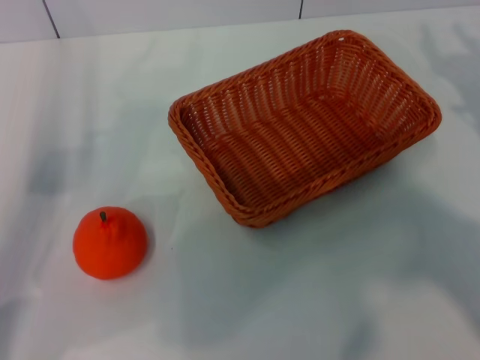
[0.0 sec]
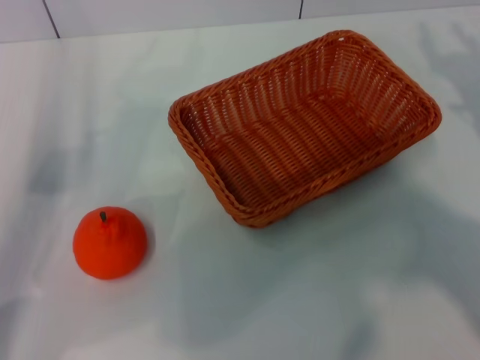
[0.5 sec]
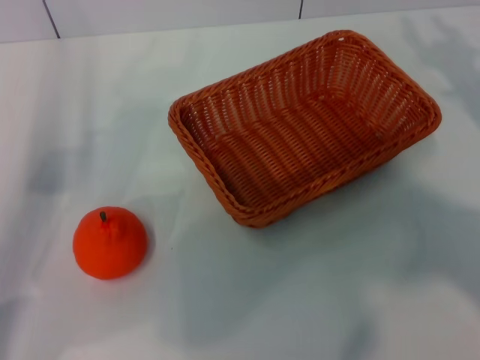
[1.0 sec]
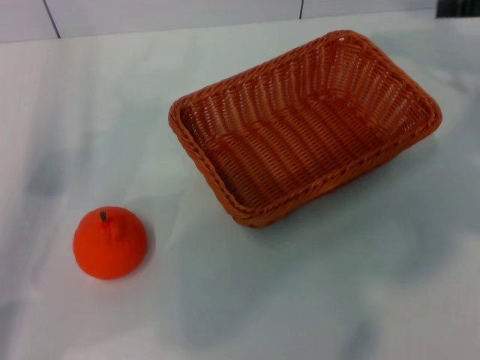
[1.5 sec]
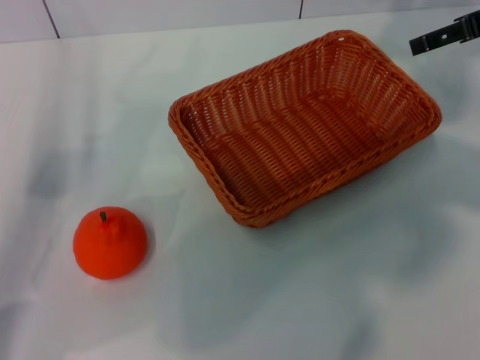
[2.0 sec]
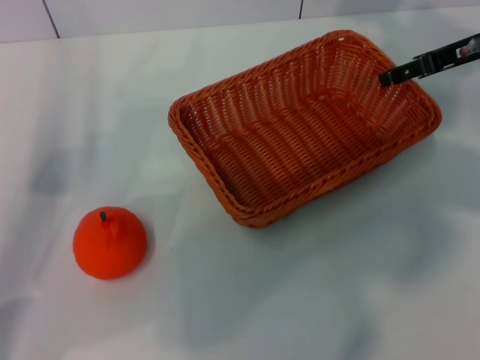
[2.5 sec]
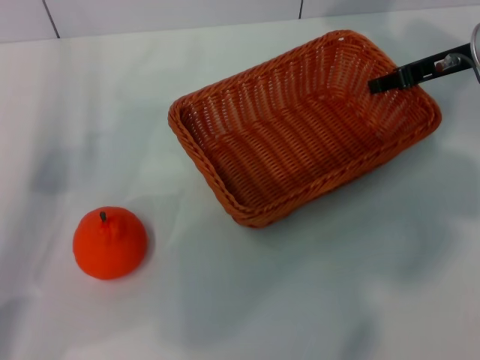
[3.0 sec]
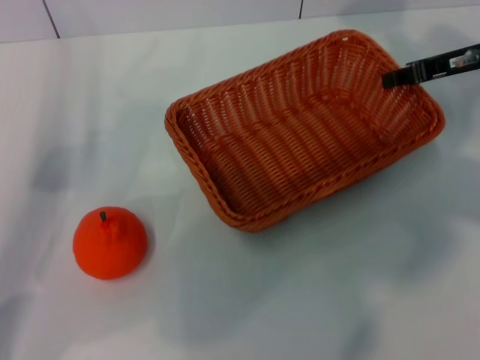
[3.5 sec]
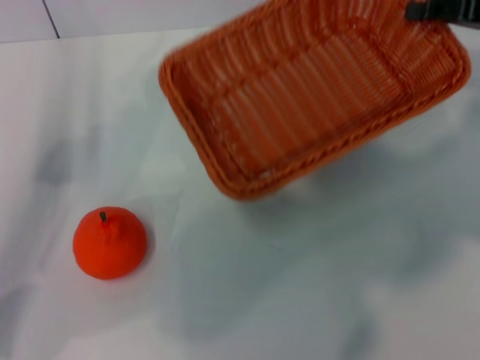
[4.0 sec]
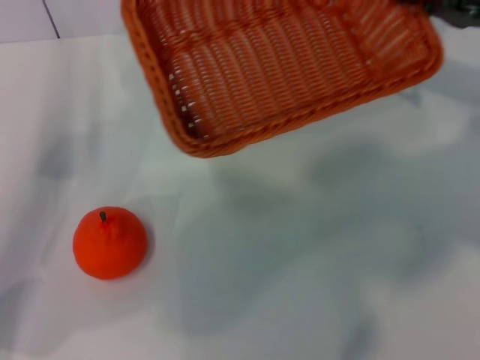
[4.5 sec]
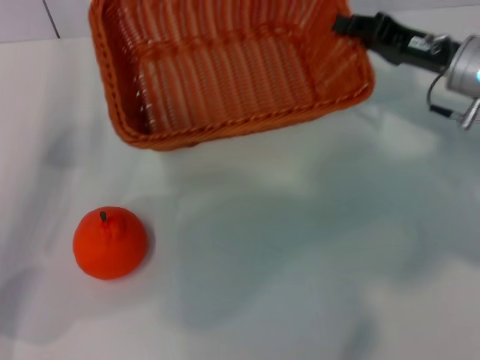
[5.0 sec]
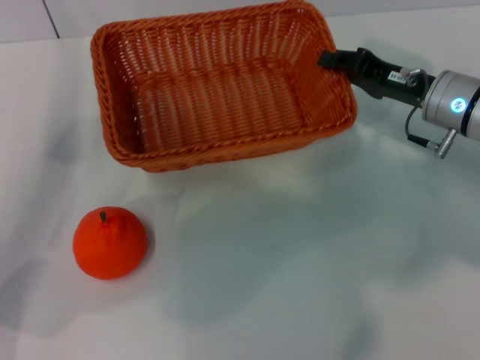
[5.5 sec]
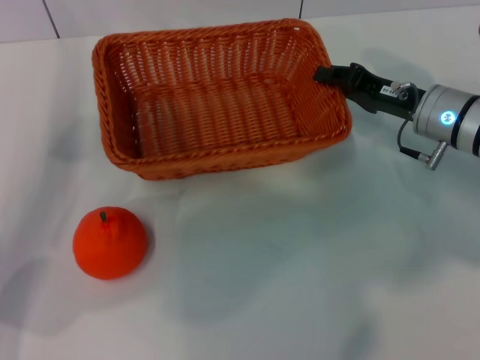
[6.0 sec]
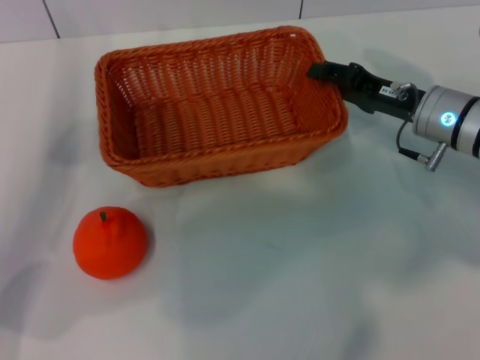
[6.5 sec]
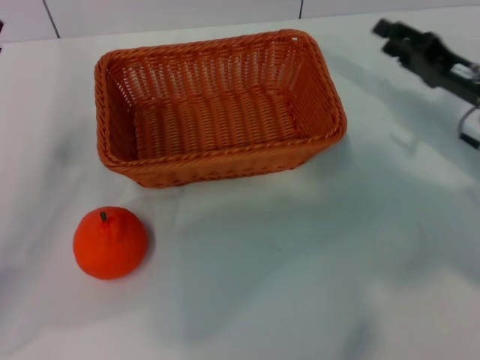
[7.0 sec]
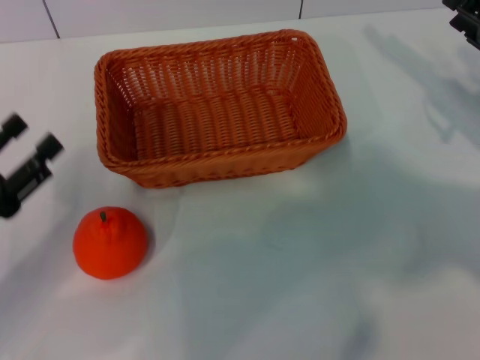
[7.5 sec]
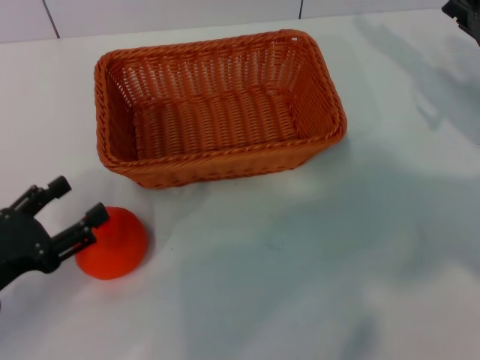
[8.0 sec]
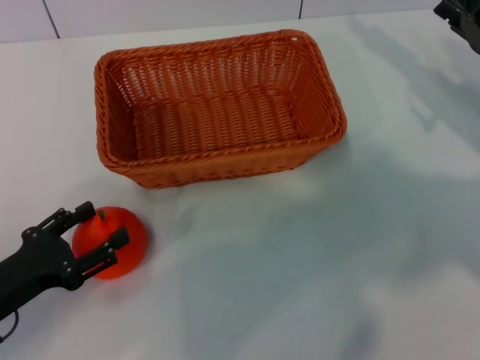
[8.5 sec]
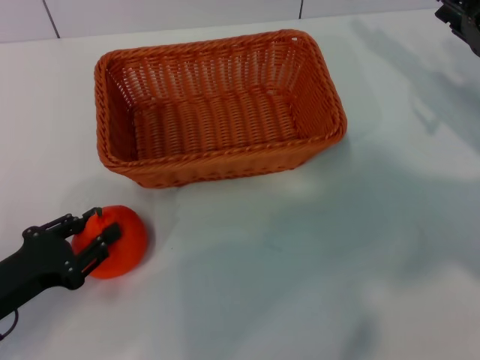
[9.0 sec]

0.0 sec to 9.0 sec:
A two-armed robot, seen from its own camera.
Task of the whole recording: the right gripper pick up the yellow basket and place it horizontally in the middle of the table, the left gripper pick up the orange and place it into the yellow basket.
Step, 0.0 sec to 3.5 sec: Pick up the light basket with the right gripper.
Step, 4.0 sec to 6.5 sec: Place the light basket in the center of view with the right gripper.
0.0 sec to 2.0 sec: The right gripper goes some 20 cm forward and upward, and opens.
2.0 sec to 4.5 sec: The right gripper is displaced downward by some 5 cm, and closes.
4.5 sec to 7.0 sec: The right gripper heads downward, covering approximately 10 cm, and opens.
7.0 sec to 9.0 sec: The left gripper travels backward and downward by some 10 cm.

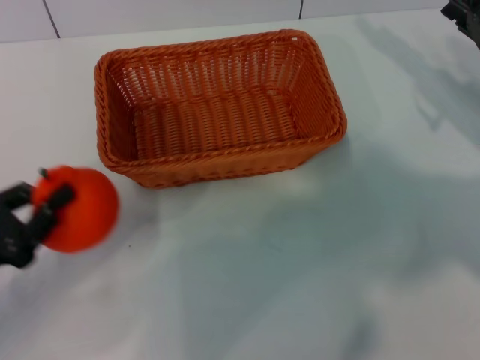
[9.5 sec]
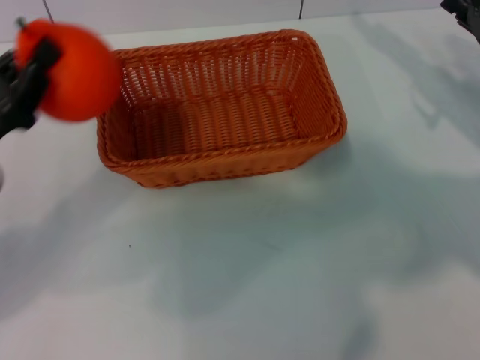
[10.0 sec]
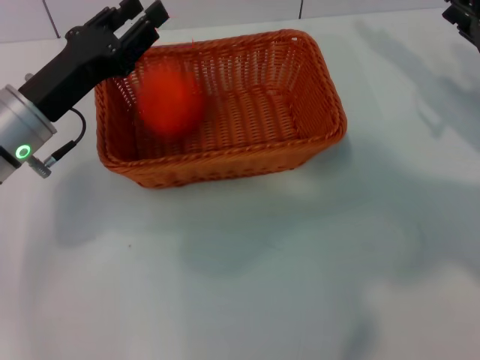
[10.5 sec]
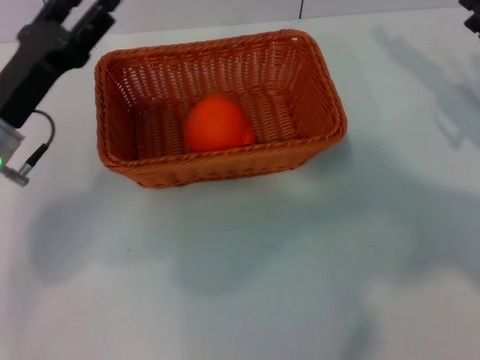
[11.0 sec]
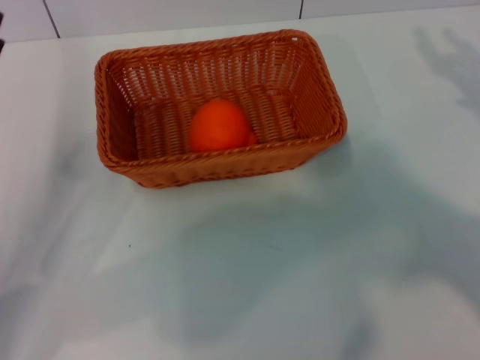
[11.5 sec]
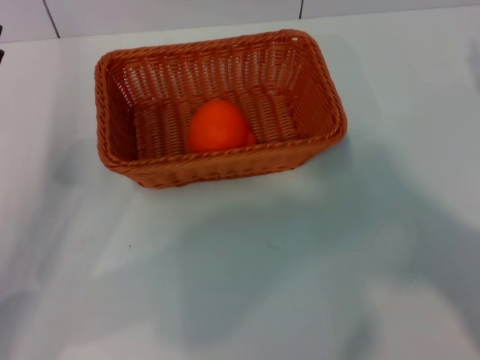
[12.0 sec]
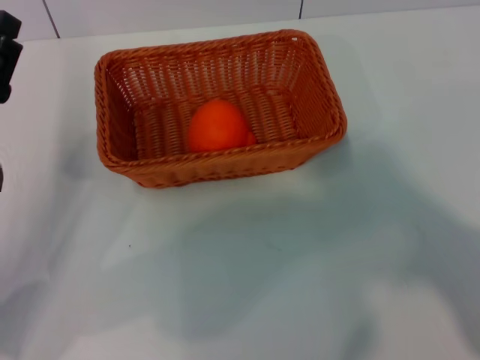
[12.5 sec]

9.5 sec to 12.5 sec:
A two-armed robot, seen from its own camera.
Task of the whole recording: the right gripper pick up the yellow basket and place it horizontally in the middle of the table, the left gripper pick up the orange and place it into the yellow basket.
Step, 10.0 sec to 10.5 sec: Place the orange into the light basket with the left gripper.
9.5 sec to 11.0 sec: The left gripper is displaced forward and to the right by approximately 15 cm, and opens up.
11.0 sec to 12.5 sec: The left gripper is displaced backward by about 5 cm. The right gripper travels backward and to the right by approximately 10 cm.

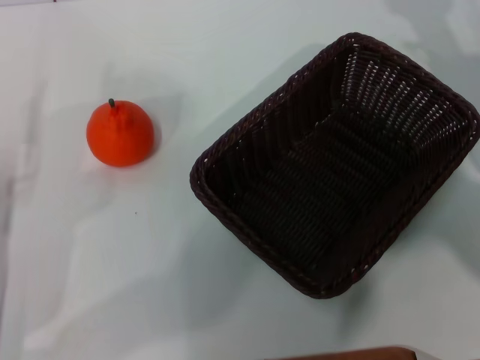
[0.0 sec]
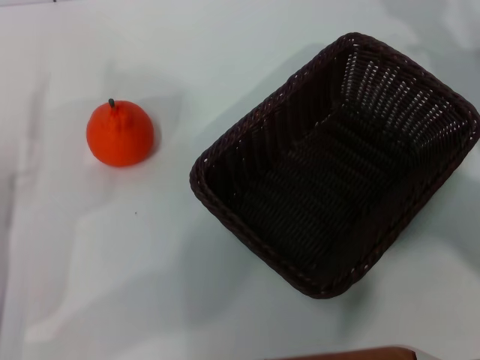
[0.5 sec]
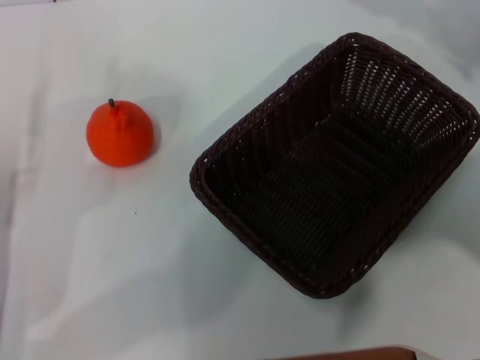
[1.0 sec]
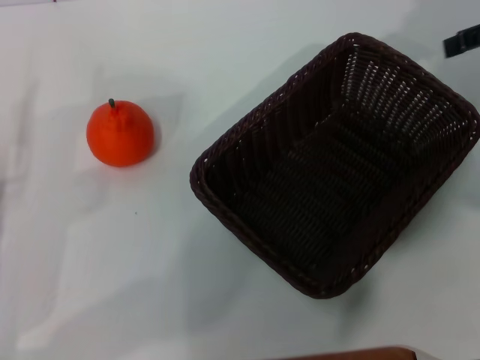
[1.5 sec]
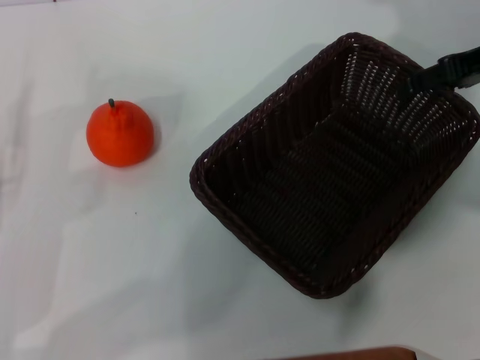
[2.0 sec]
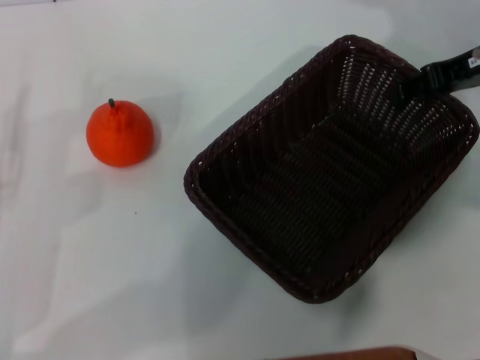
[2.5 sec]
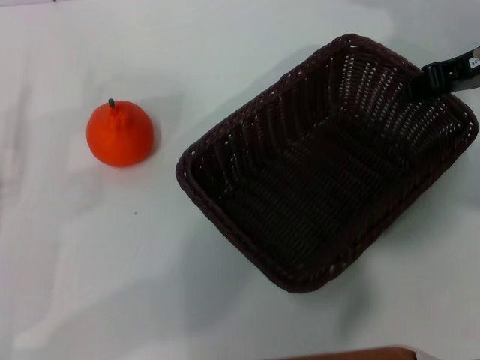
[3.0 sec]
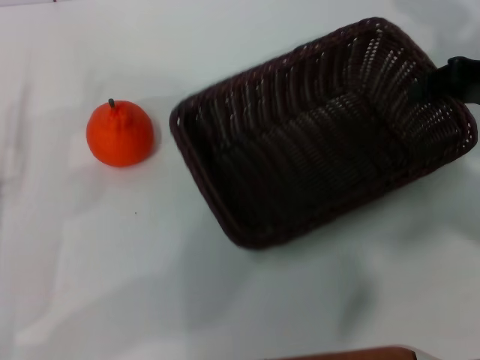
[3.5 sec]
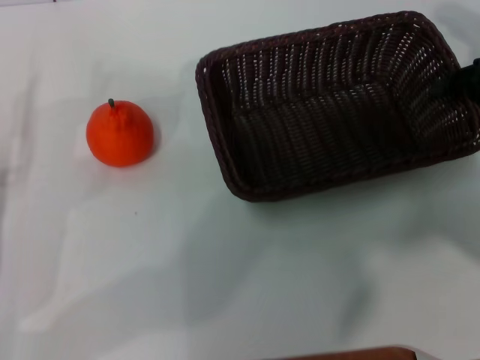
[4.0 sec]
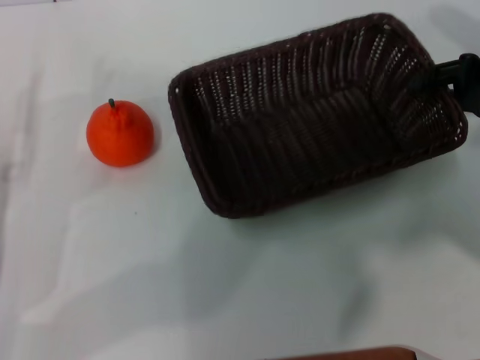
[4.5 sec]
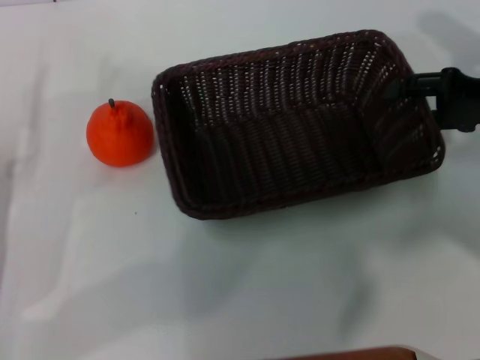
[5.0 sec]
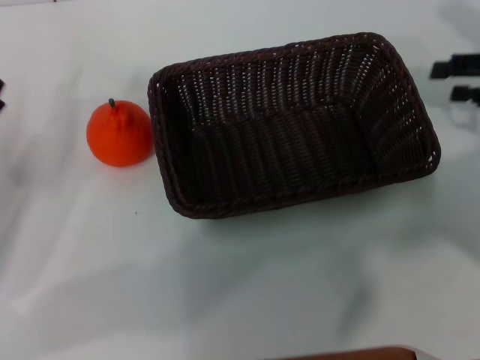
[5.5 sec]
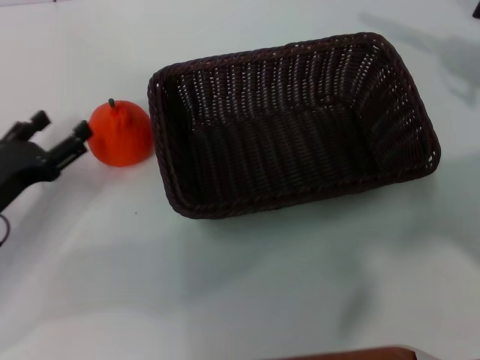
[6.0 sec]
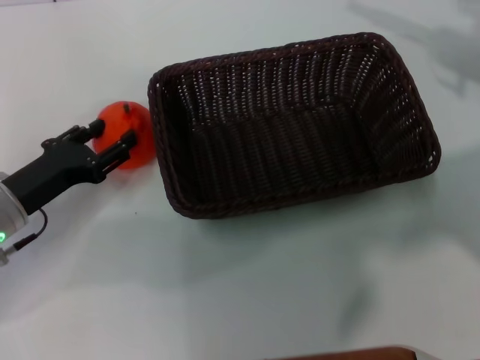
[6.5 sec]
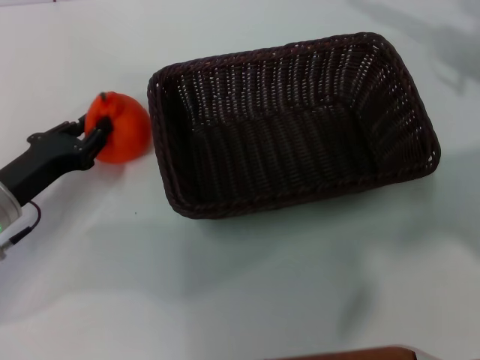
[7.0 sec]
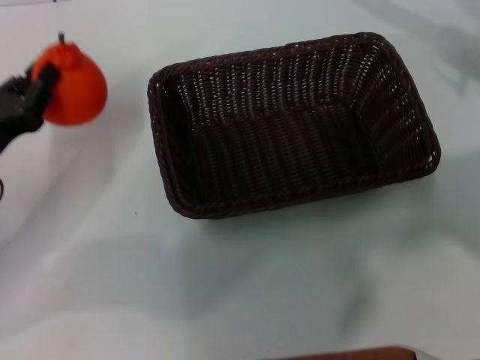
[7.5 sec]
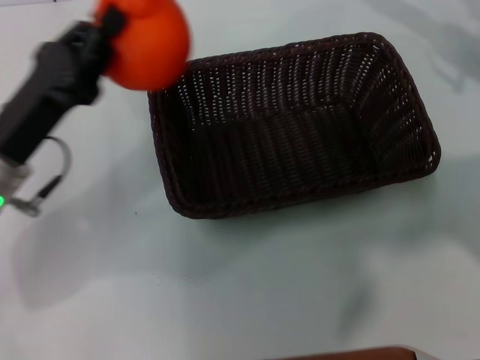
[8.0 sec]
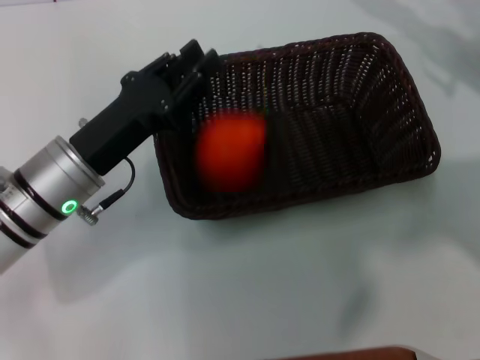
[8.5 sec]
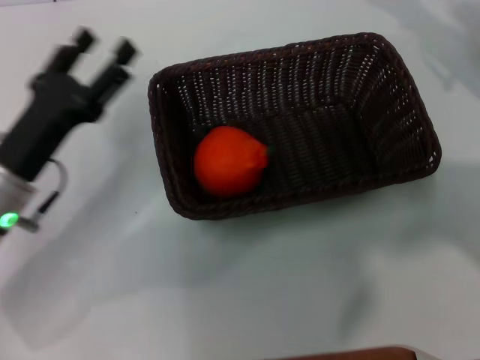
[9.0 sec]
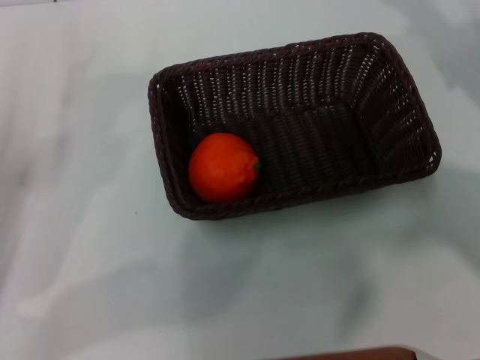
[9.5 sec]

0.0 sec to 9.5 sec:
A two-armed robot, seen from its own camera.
Task of the whole recording: the right gripper pick up the black basket and place it horizontally in the middle of the table, the left gripper pick up the orange and place it into the black basket.
Step, 0.0 sec to 3.0 sec: Pick up the dark basket with the right gripper.
Step, 3.5 sec to 5.0 sec: Place the dark basket in the center of view with the right gripper.
Step, 5.5 sec to 7.0 sec: Pick up the orange with the left gripper.
Step, 7.5 sec to 8.0 sec: Place the orange into the dark basket with the left gripper.
0.0 sec to 2.0 sec: The right gripper moves upward and forward, about 10 cm.
2.0 sec to 4.0 sec: The right gripper moves downward, some 5 cm, and closes its fingers.
4.0 sec to 5.5 sec: The right gripper opens its fingers.
5.5 sec to 7.5 sec: The left gripper closes.
7.5 sec to 9.5 sec: The left gripper moves some 10 cm to the right and comes back, and opens.
